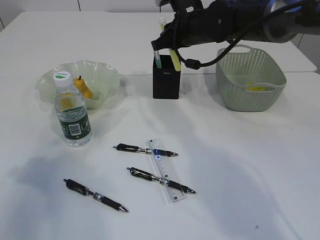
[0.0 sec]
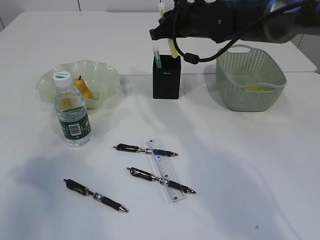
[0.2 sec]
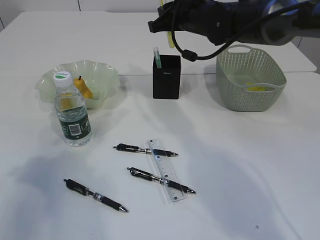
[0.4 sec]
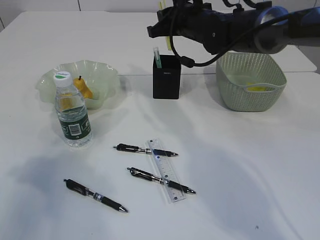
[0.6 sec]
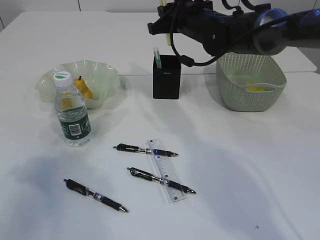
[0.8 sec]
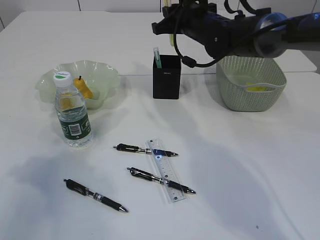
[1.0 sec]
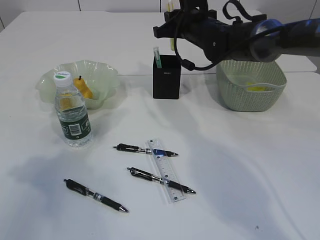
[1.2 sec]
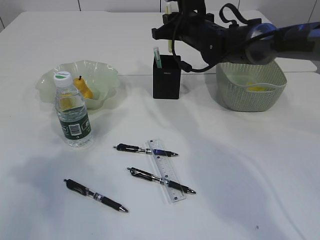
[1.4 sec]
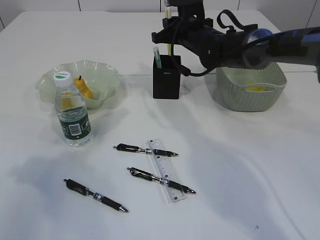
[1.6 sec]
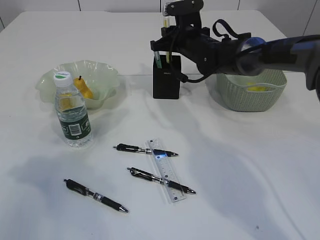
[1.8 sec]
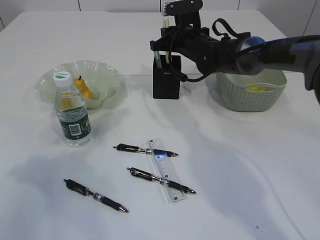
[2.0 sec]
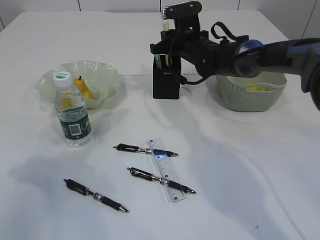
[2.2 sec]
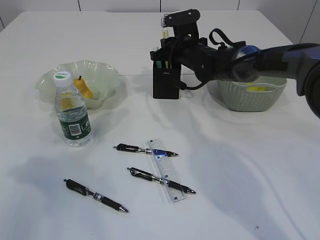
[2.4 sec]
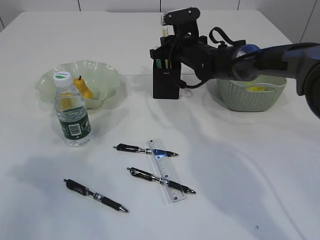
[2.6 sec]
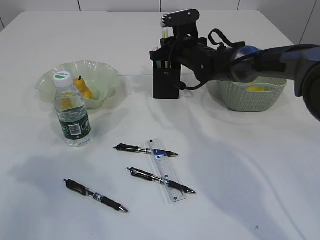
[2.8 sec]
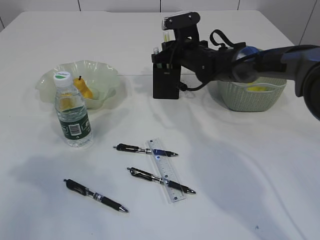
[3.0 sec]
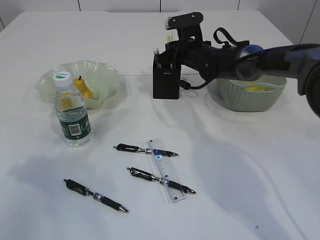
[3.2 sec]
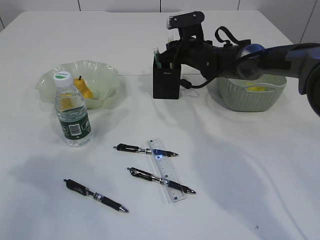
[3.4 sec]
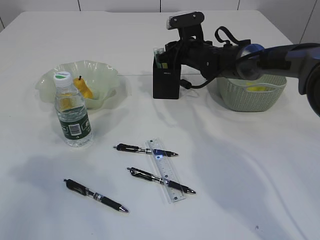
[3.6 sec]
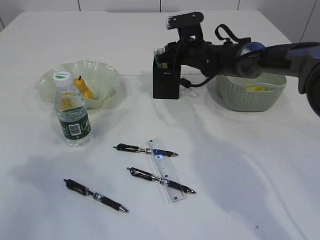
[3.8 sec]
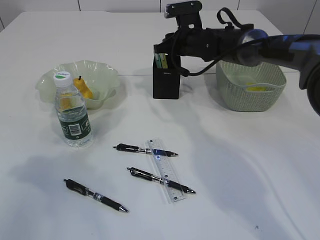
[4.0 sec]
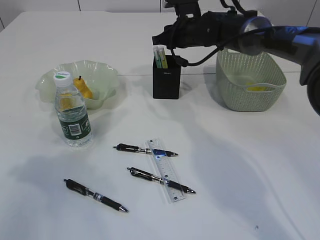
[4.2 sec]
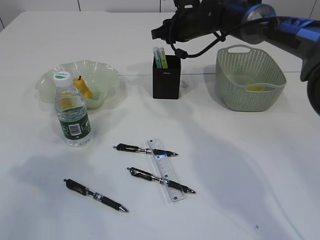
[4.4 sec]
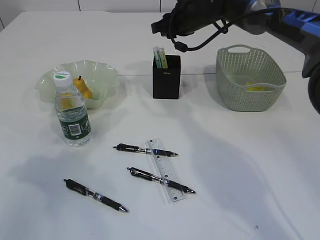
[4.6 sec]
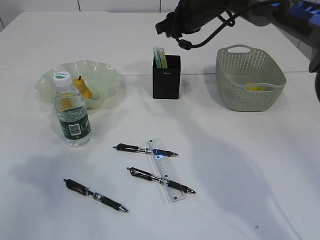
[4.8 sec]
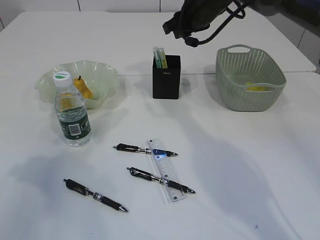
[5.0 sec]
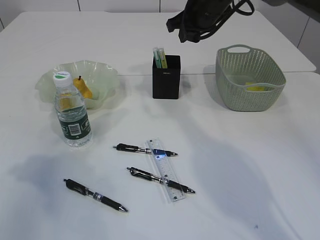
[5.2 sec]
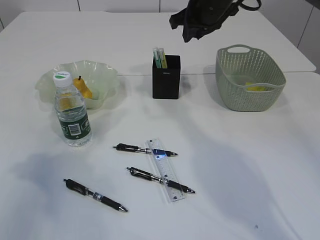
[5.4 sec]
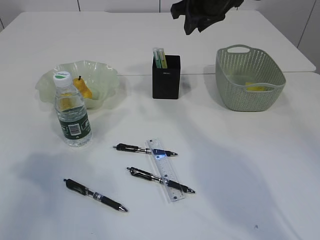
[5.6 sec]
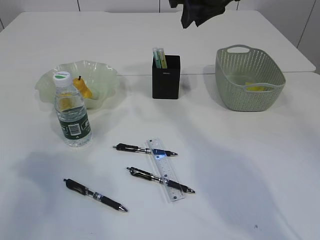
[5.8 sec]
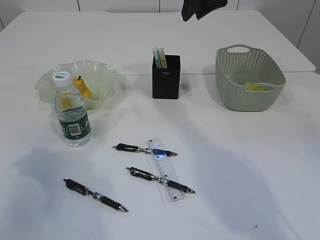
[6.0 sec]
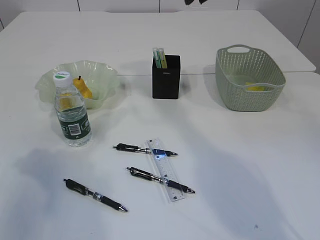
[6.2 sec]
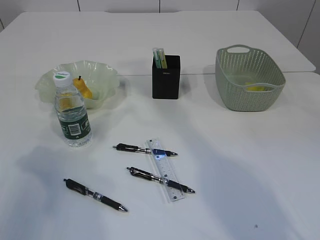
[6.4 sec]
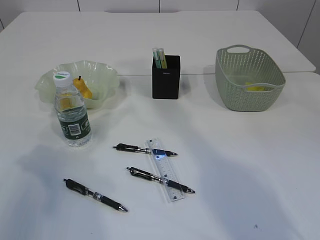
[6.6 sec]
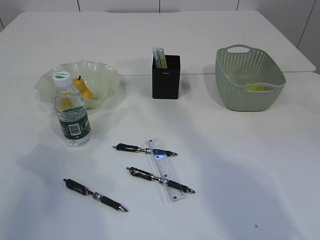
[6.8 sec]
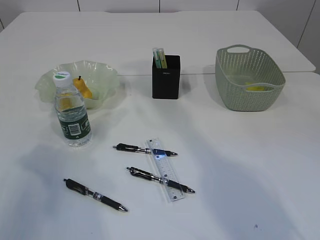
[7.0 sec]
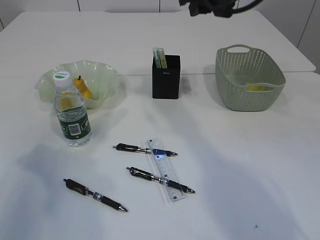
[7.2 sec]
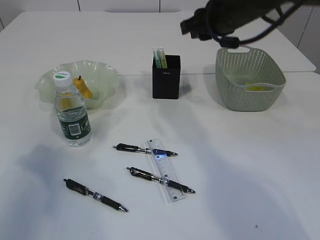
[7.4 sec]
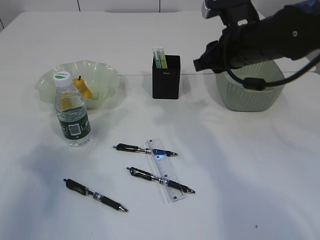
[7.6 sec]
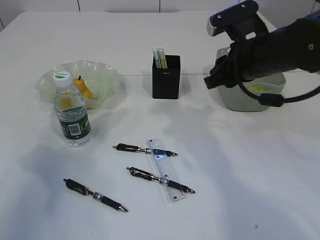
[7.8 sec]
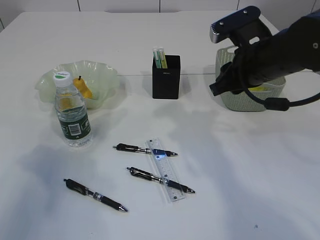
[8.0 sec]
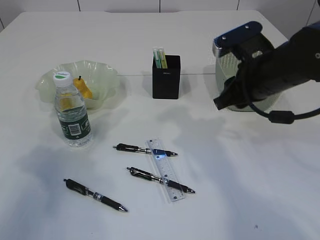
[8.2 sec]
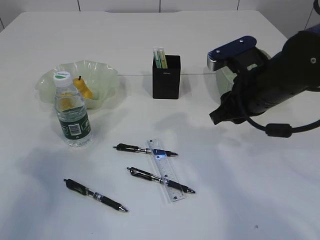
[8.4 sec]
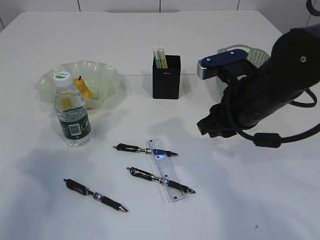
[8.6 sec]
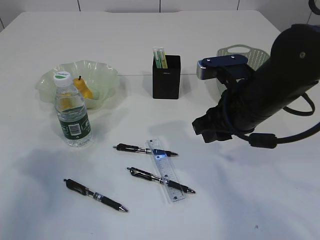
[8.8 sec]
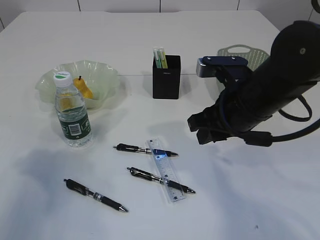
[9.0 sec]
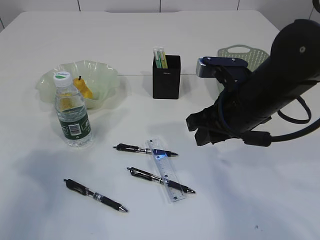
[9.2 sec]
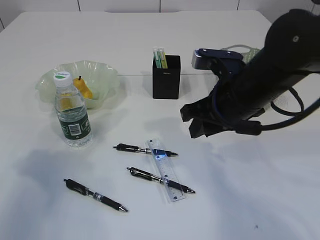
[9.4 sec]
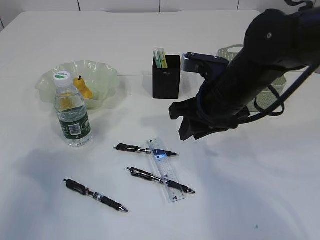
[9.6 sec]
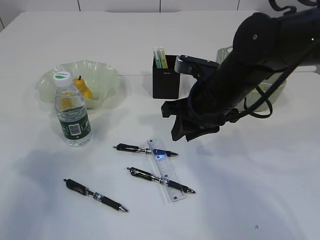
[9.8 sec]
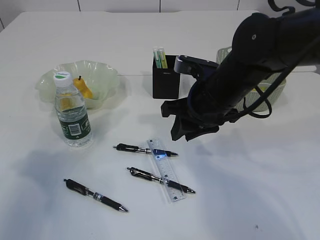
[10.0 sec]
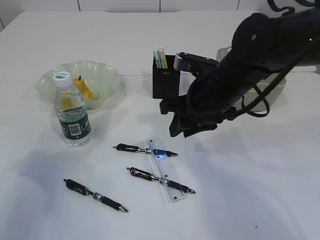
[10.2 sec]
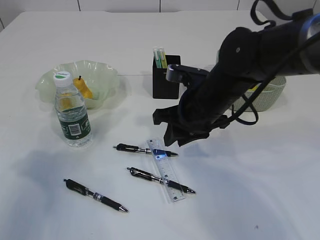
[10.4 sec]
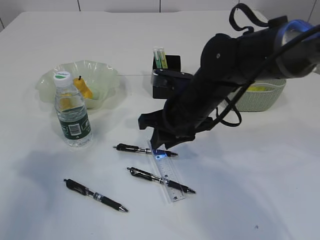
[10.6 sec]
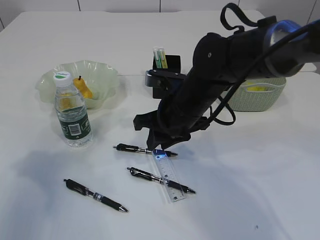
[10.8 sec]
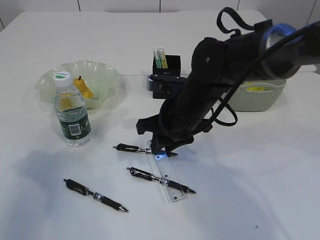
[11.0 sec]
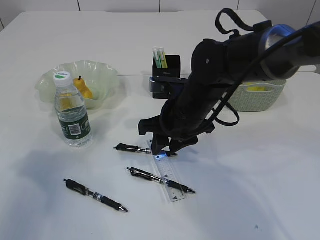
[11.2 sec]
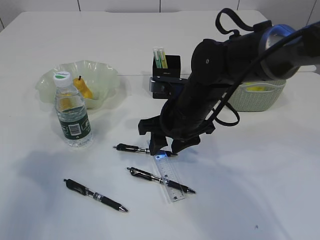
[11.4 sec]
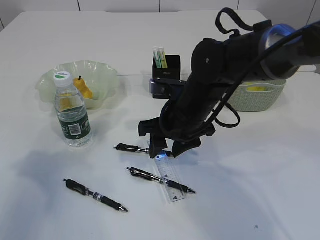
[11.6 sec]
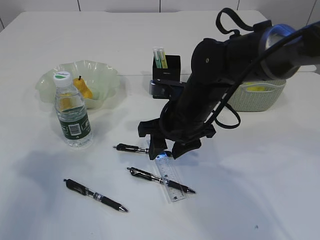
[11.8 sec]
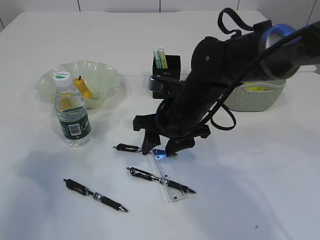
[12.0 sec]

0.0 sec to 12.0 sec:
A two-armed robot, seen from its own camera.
Step, 0.0 sec to 4.6 sec: place the yellow knife into the pen holder.
0.0 sec to 1.6 sec: The right gripper ends up some 5 cm from where it was.
1.6 sec to 3.0 sec: The right gripper is displaced downward by some 5 cm.
3.0 sec to 4.4 sec: The right gripper goes roughly 5 cm upward.
4.4 sec to 6.0 sec: The right gripper moves upward and backward, some 15 cm.
6.0 sec to 7.6 sec: The right gripper heads downward and backward, covering some 10 cm.
7.6 sec to 9.0 sec: The right gripper heads backward, covering some 10 cm.
9.0 sec to 10.4 sec: The right gripper changes place by some 5 cm.
10.4 sec to 12.0 sec: The right gripper opens up.

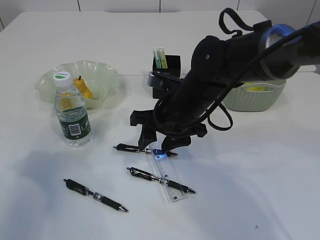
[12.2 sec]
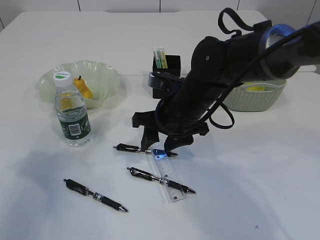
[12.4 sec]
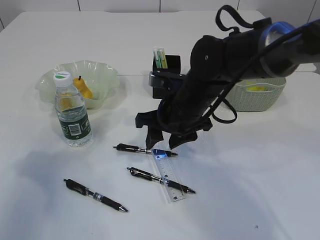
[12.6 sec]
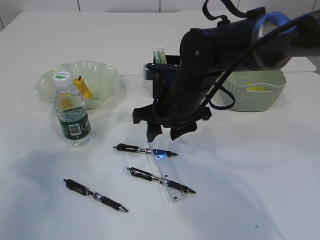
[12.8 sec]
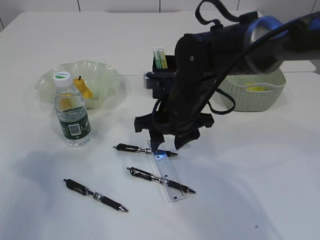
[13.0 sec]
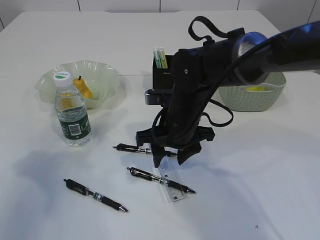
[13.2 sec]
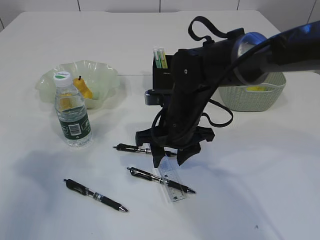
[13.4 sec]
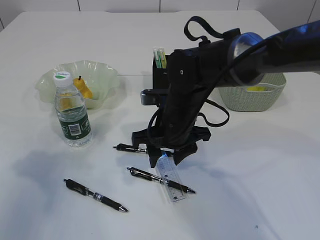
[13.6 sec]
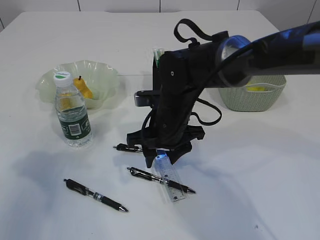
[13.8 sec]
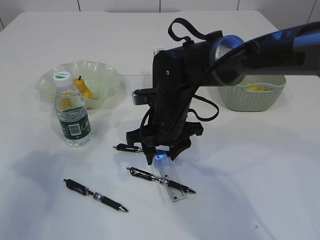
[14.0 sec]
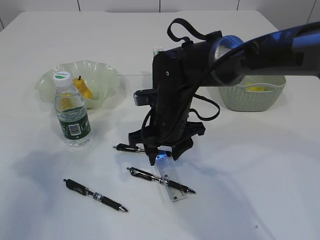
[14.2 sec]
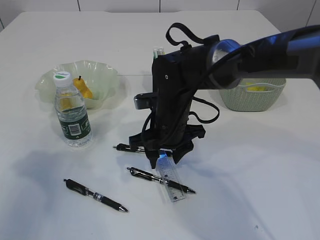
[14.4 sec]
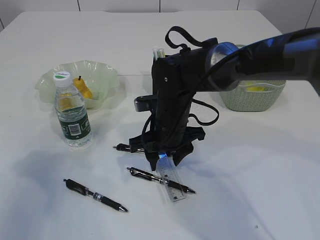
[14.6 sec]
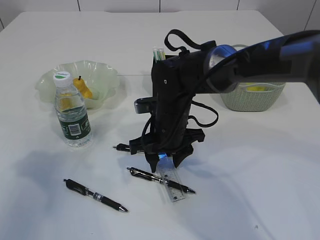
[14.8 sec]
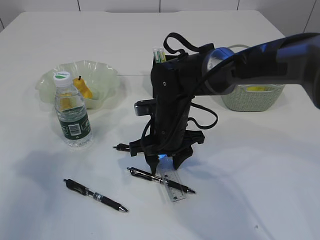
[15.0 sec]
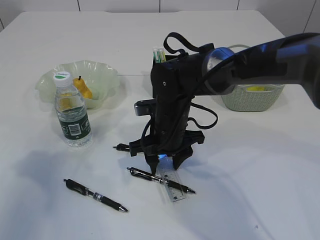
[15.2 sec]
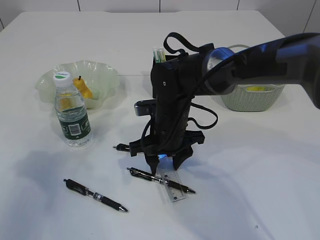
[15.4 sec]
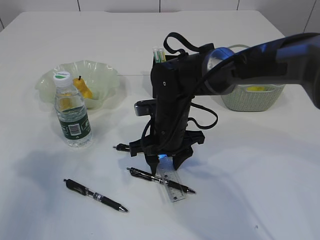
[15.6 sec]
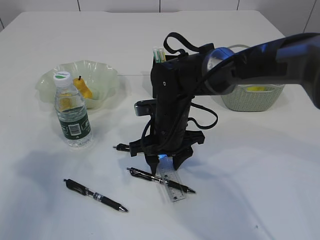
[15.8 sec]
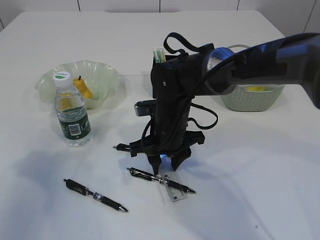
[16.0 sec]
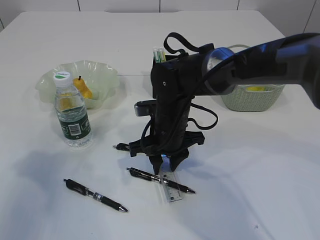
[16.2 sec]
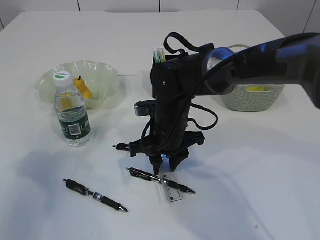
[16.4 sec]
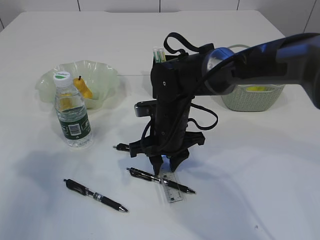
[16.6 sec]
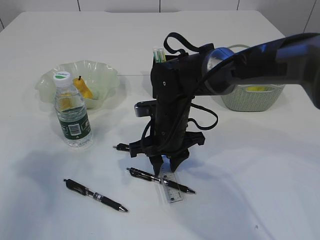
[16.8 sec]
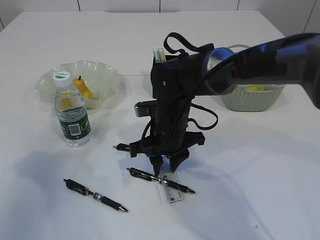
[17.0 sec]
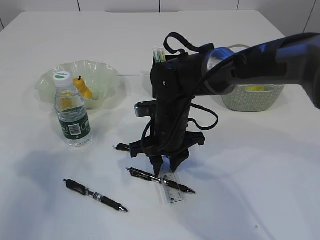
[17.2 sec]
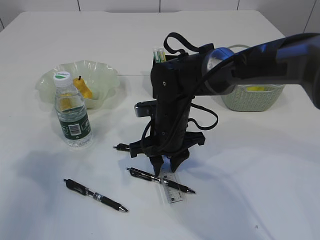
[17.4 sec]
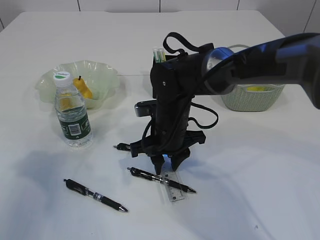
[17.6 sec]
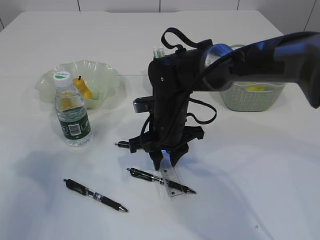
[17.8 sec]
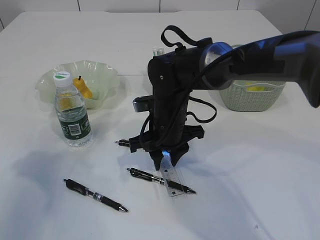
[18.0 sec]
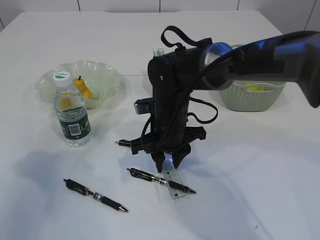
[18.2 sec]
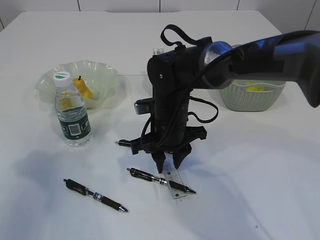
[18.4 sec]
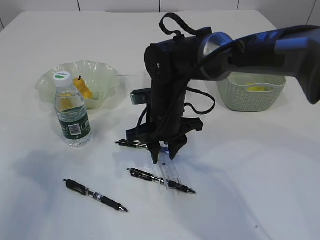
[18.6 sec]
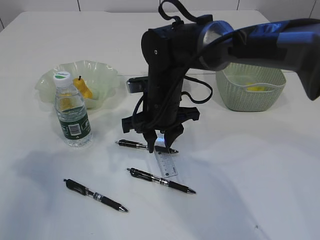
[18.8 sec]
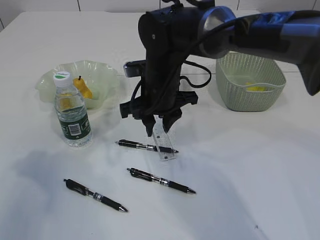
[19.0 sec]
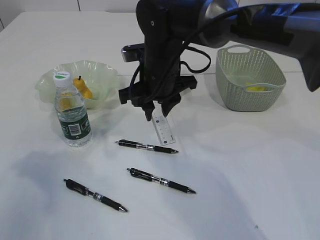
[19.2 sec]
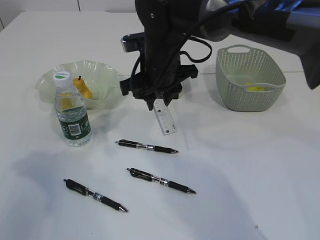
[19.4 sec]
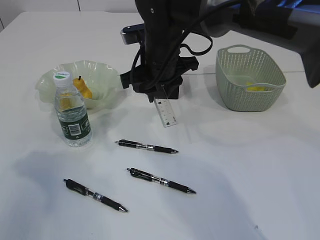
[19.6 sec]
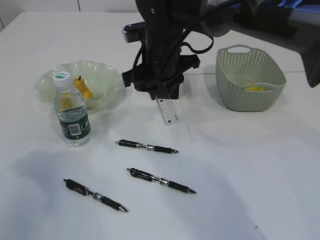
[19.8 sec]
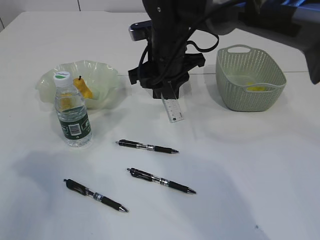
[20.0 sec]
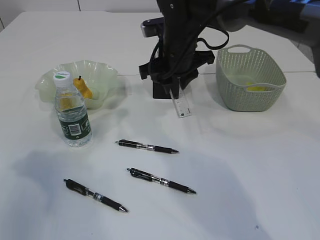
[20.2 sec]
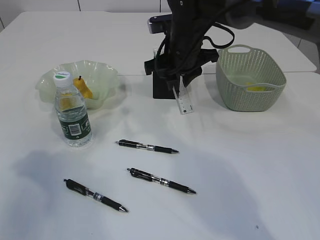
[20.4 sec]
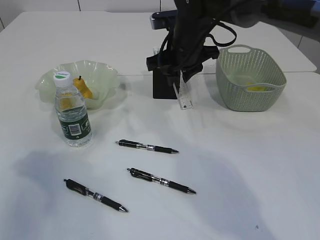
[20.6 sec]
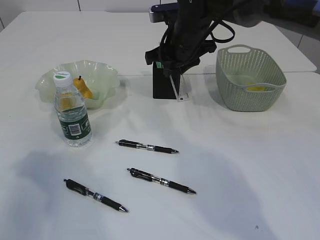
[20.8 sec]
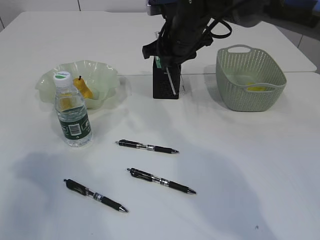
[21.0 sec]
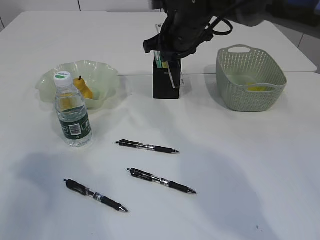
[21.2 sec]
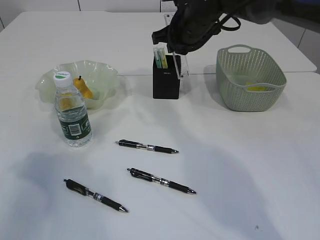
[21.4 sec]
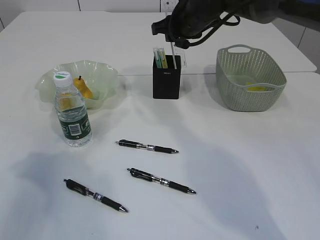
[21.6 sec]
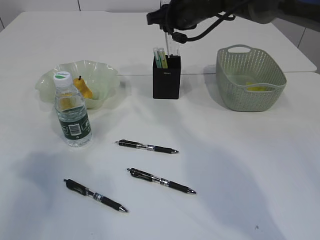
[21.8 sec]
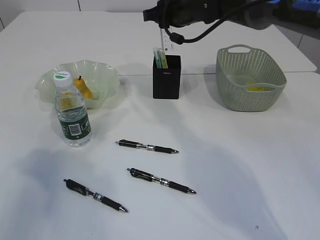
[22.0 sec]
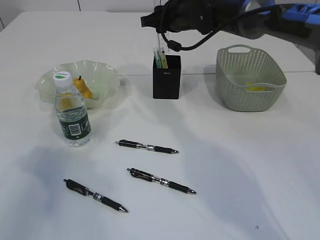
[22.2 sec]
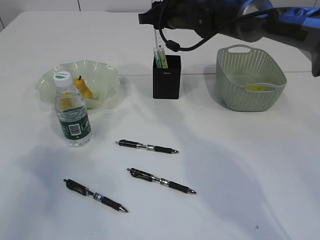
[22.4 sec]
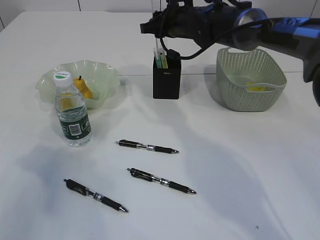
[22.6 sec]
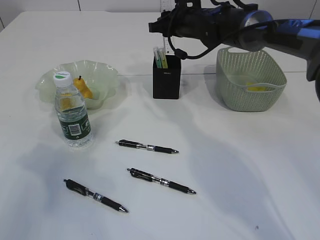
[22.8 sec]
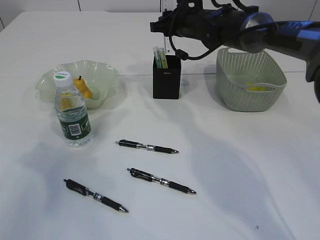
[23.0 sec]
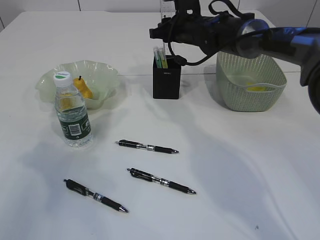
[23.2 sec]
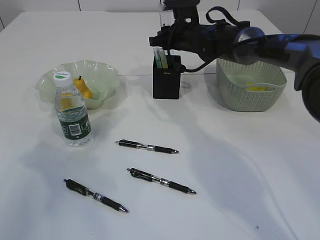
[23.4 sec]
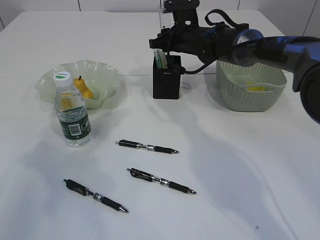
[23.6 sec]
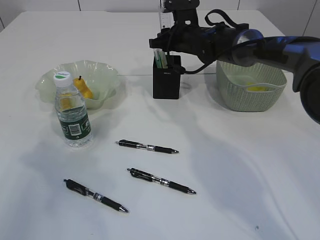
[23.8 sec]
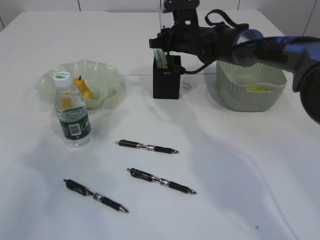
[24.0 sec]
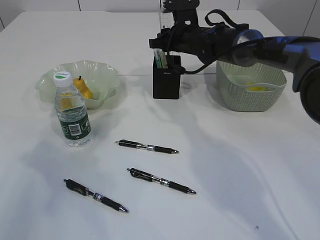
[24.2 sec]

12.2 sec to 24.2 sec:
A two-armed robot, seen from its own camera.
Step, 12.2 sec to 19.2 sec: pick up the ruler.
12.2 sec to 13.8 sec: The grippers move only a little.
13.8 sec to 15.2 sec: The grippers stay close to where they were, moving slightly.
15.2 sec to 18.2 sec: The two grippers keep their place.
18.2 sec to 19.8 sec: The right gripper moves upward and forward, roughly 10 cm.
19.8 sec to 21.2 sec: The right gripper is displaced forward and to the right by some 10 cm.
21.2 sec to 22.6 sec: The right gripper shifts about 5 cm forward.
22.6 sec to 24.2 sec: The right gripper ends up roughly 5 cm from where it was.
